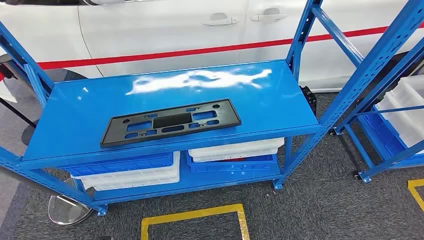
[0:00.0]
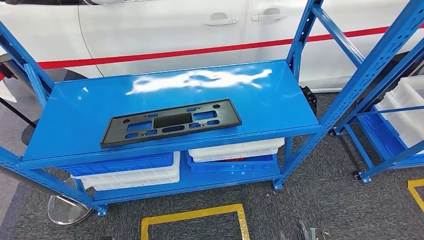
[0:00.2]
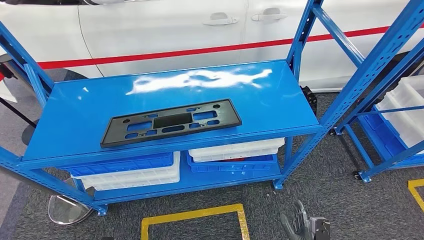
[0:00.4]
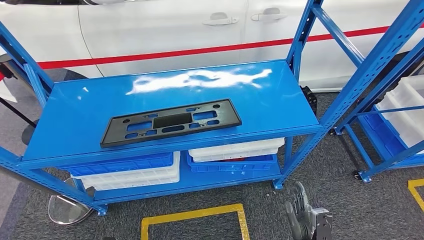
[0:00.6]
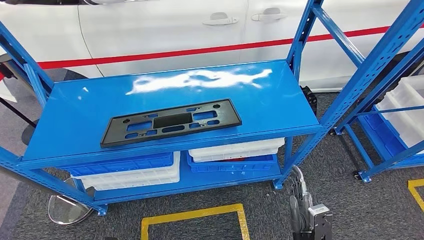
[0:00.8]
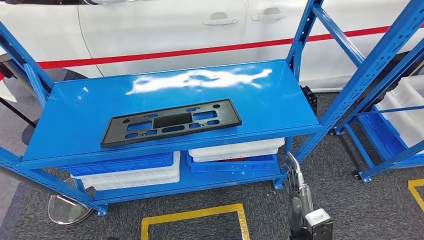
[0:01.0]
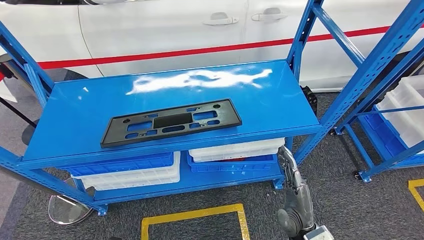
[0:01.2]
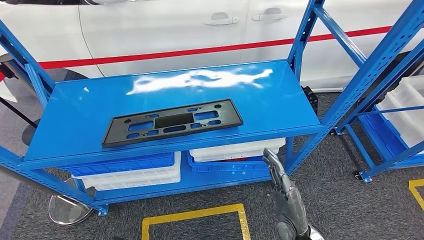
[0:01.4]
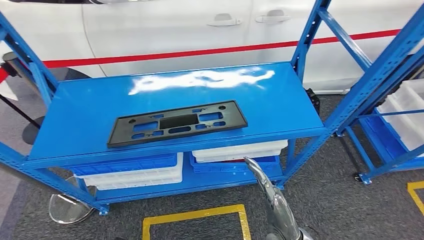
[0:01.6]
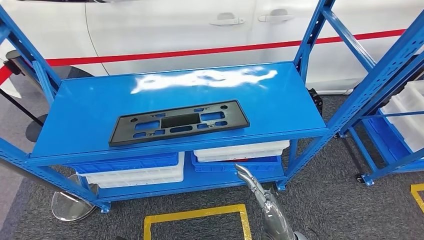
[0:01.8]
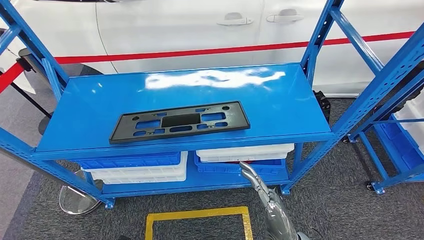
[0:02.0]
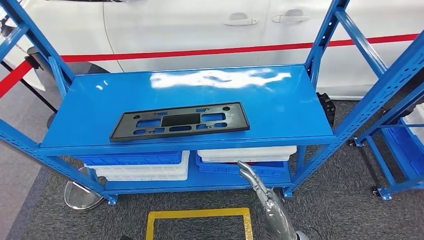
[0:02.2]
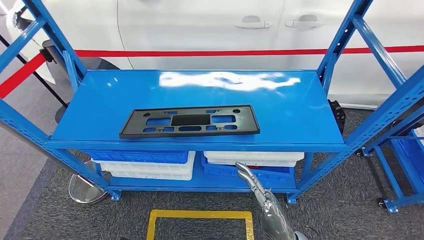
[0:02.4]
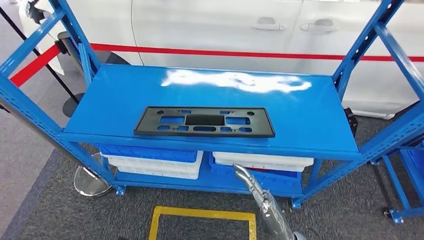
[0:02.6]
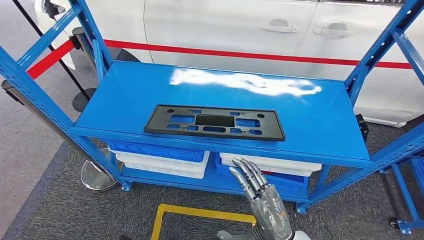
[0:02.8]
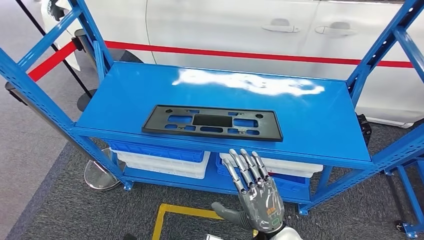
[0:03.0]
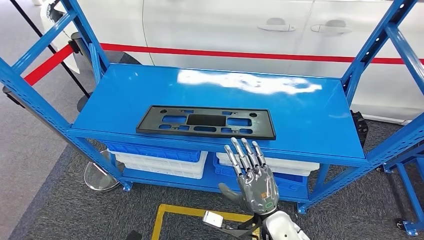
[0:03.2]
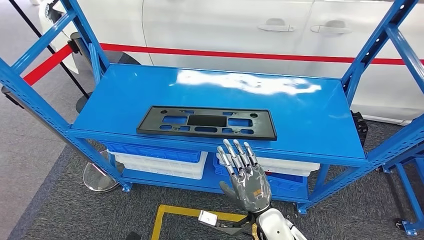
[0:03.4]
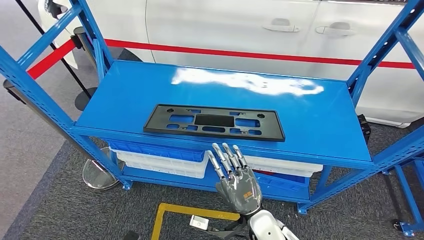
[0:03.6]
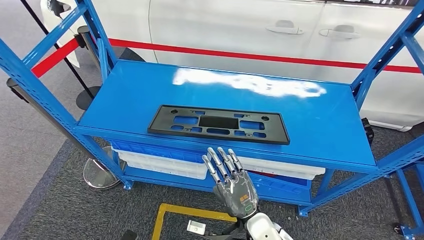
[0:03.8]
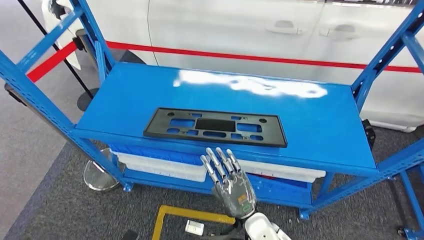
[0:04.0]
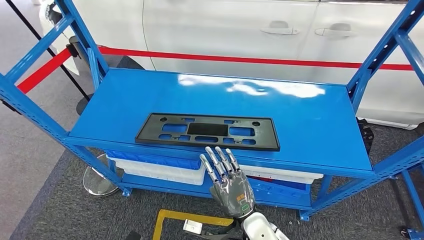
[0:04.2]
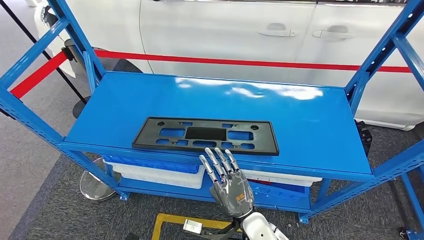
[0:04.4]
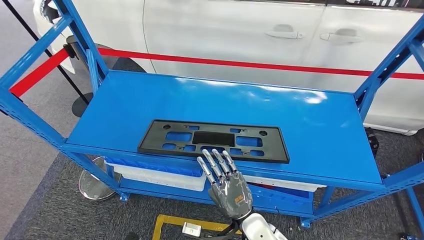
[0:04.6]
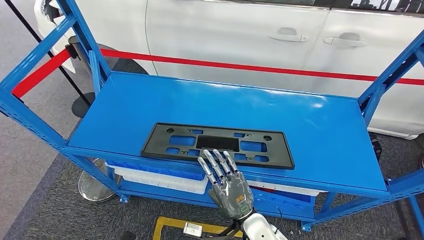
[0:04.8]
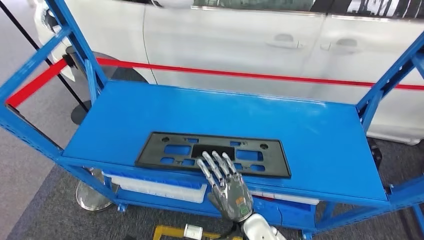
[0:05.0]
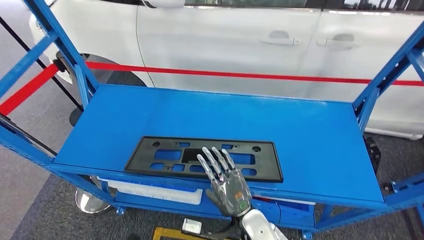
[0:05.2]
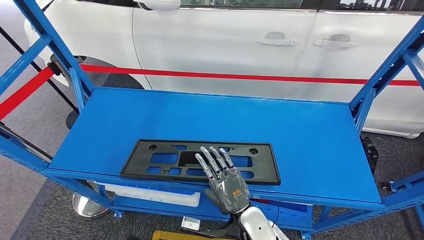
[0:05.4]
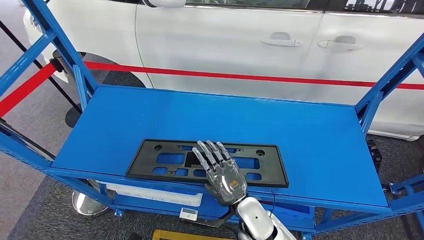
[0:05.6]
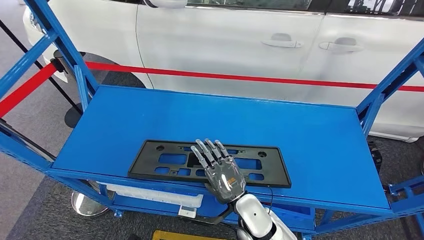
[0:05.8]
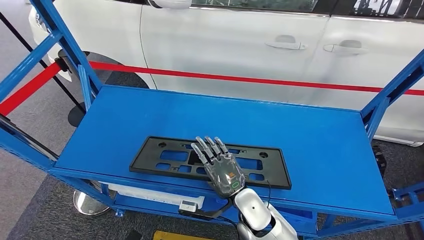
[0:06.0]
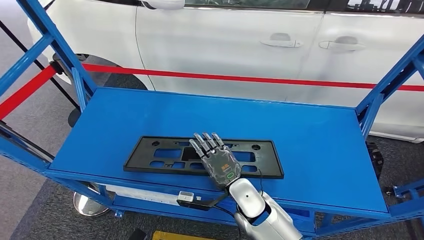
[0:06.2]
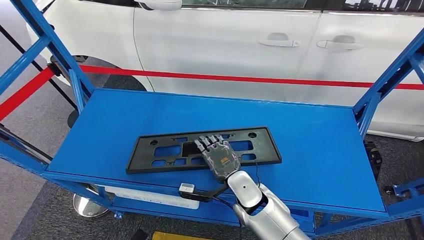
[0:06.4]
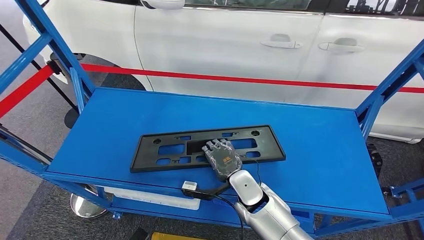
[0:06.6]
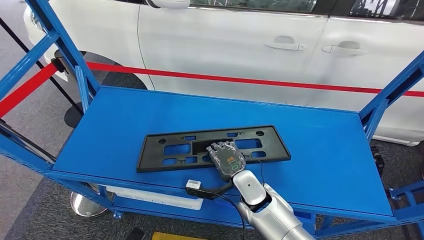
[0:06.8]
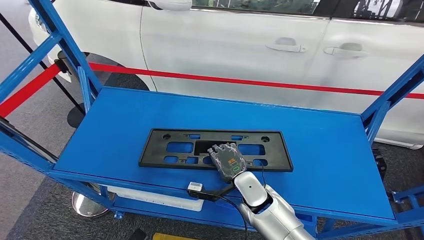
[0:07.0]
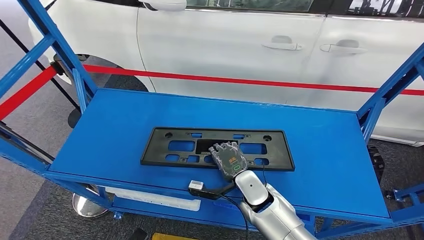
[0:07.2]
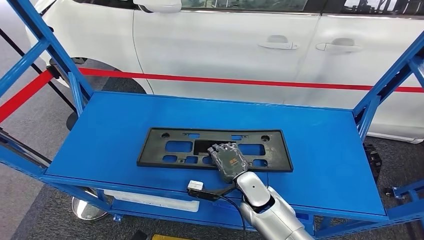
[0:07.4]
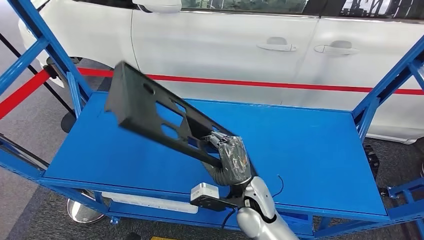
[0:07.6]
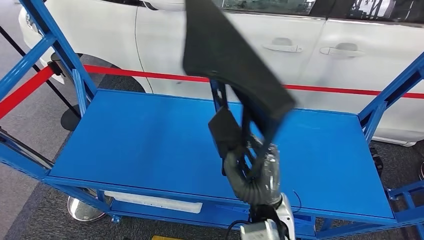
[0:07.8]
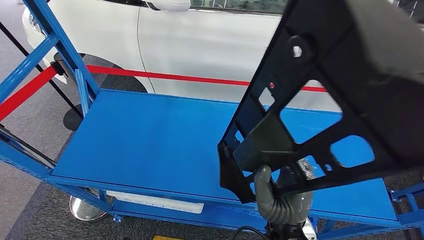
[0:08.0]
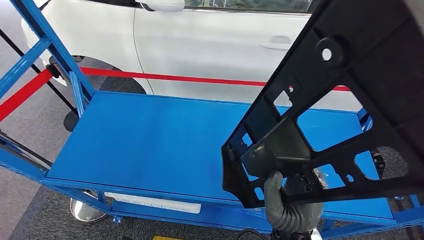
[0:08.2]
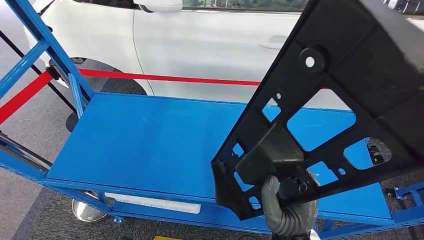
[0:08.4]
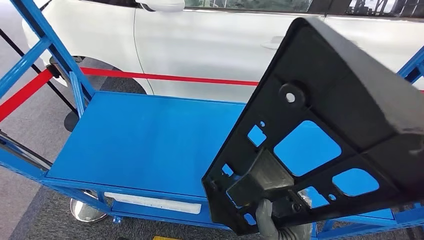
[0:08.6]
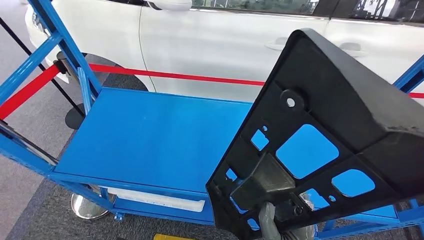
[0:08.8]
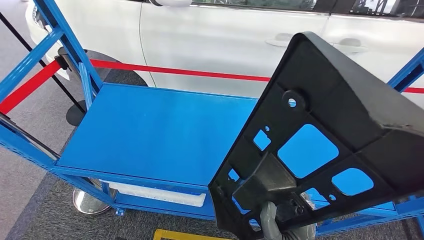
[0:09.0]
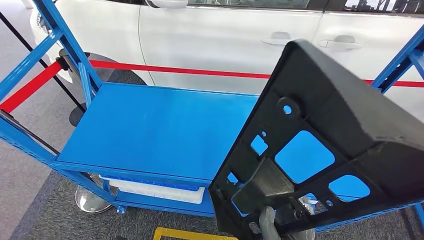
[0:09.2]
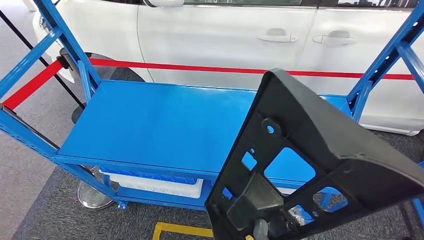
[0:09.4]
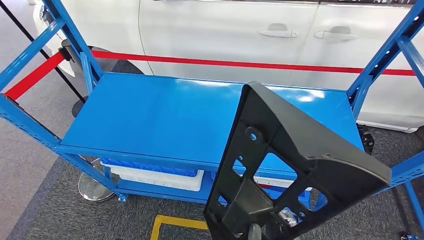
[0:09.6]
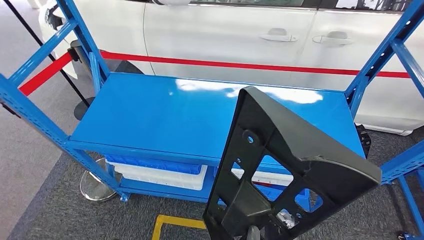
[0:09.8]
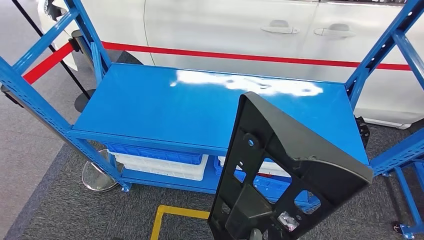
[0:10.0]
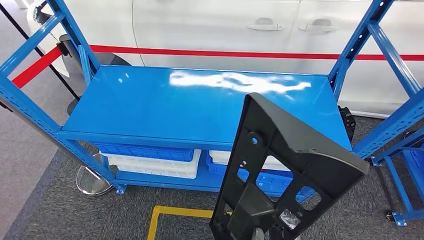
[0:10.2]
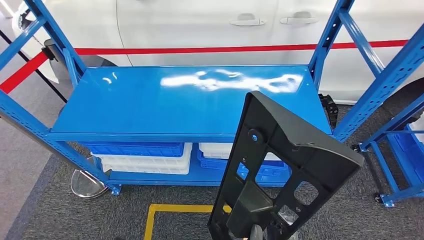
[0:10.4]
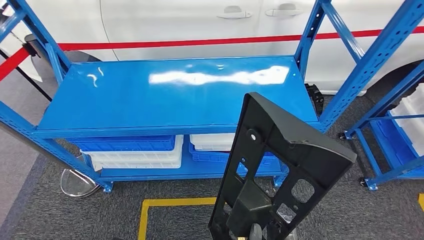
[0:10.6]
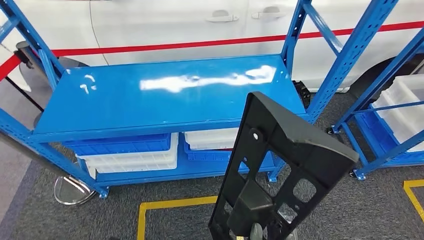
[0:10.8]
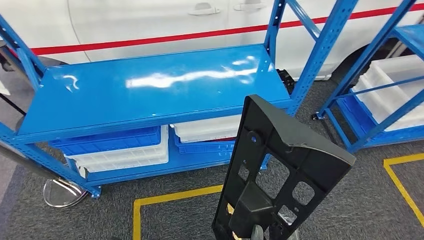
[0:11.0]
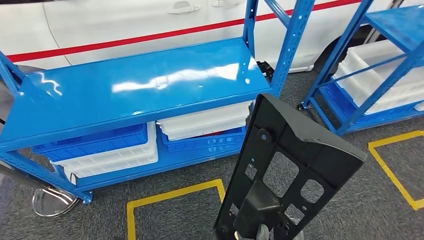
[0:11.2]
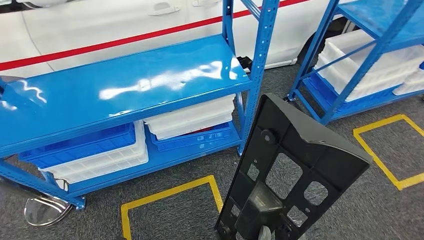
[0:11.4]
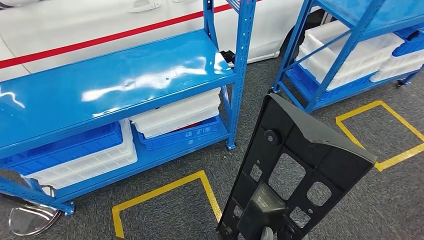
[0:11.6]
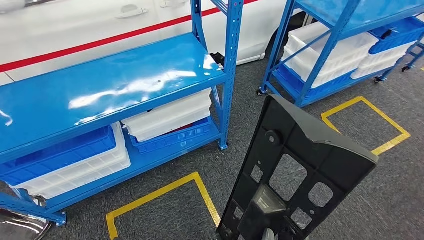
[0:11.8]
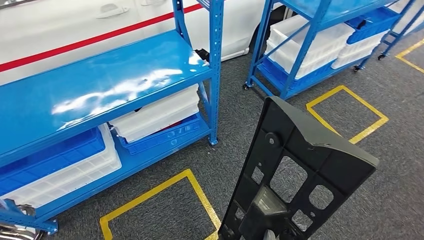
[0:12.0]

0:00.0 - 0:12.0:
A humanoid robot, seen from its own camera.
Step, 0:00.0 - 0:09.0: Pick up the large material from the shelf.

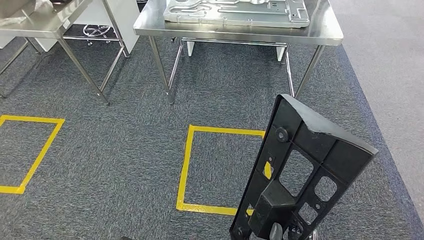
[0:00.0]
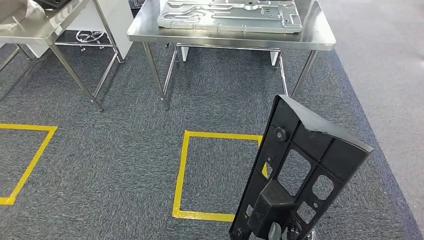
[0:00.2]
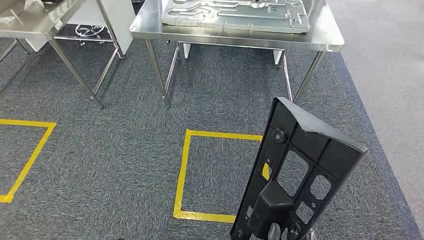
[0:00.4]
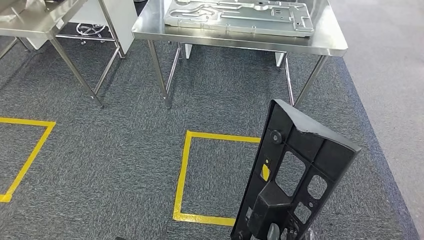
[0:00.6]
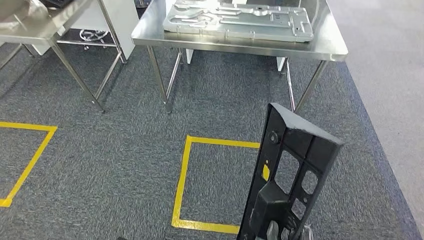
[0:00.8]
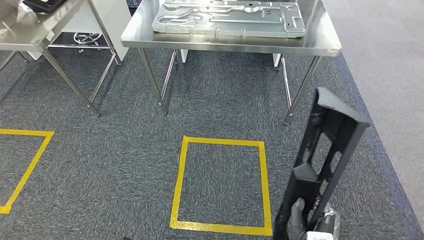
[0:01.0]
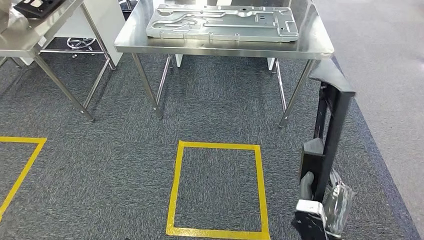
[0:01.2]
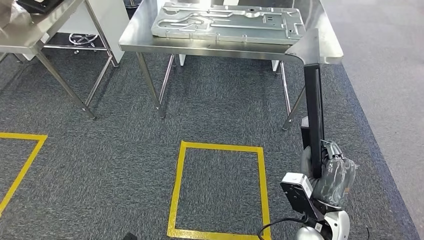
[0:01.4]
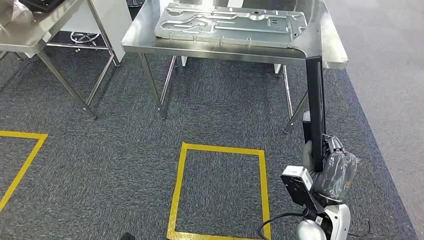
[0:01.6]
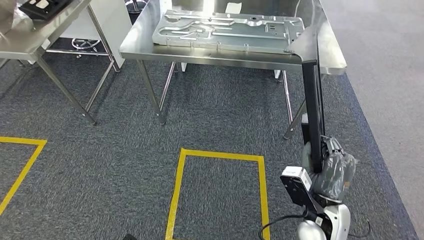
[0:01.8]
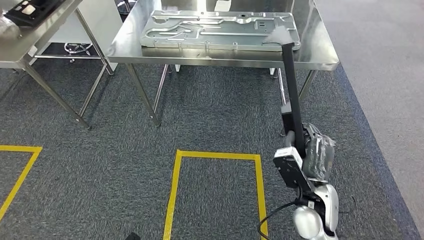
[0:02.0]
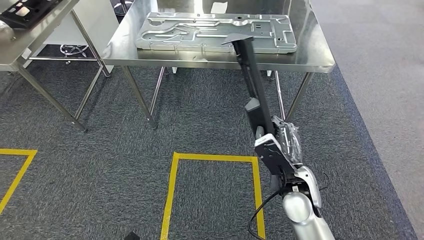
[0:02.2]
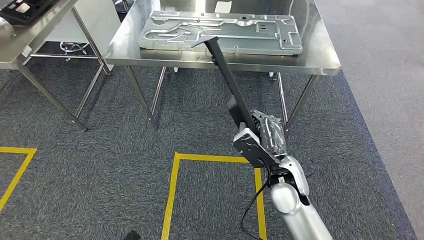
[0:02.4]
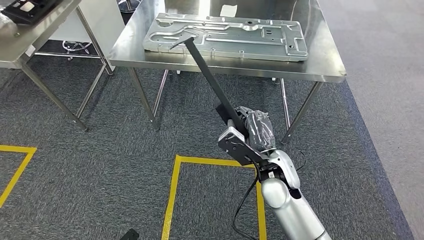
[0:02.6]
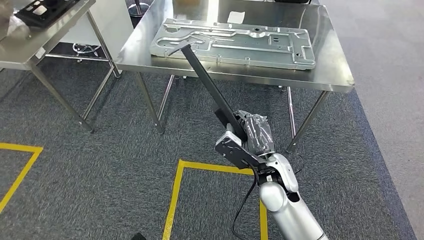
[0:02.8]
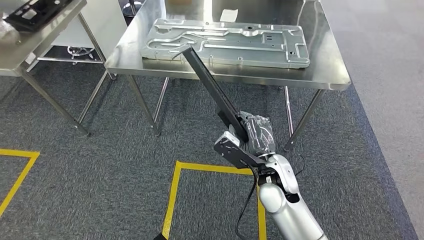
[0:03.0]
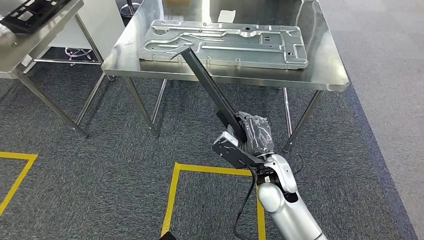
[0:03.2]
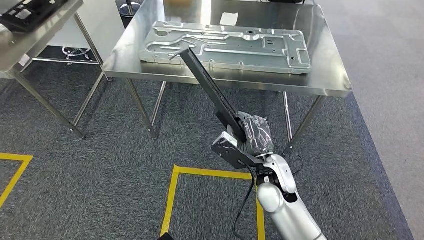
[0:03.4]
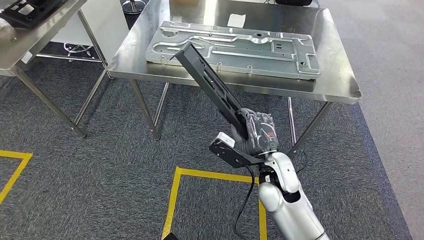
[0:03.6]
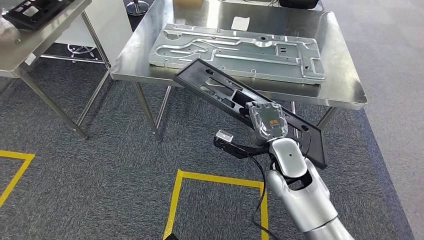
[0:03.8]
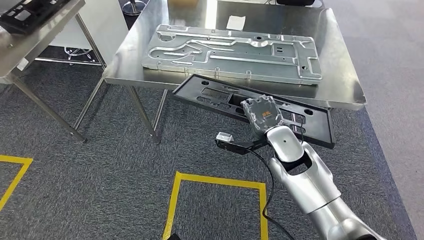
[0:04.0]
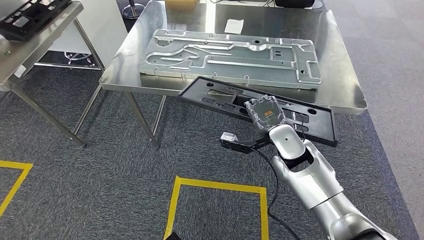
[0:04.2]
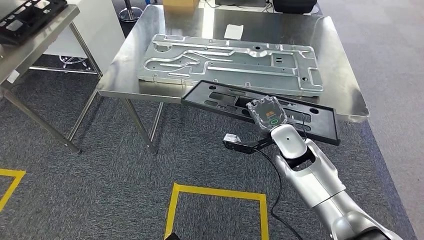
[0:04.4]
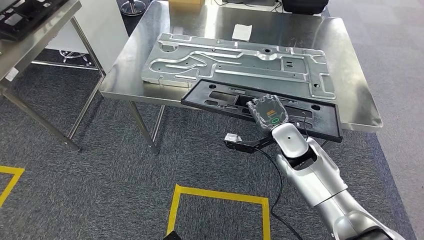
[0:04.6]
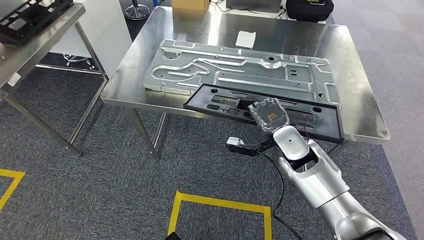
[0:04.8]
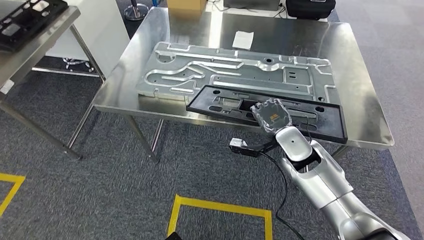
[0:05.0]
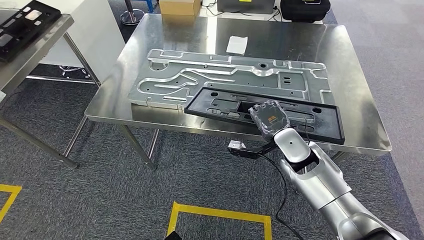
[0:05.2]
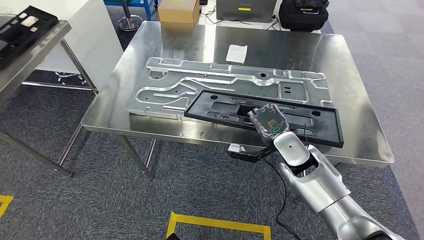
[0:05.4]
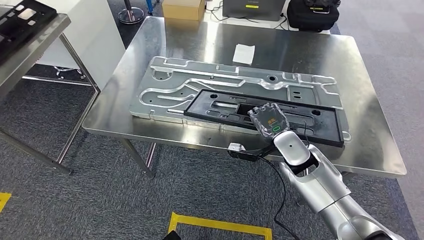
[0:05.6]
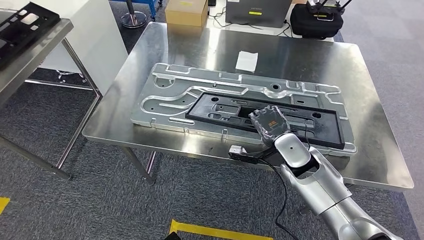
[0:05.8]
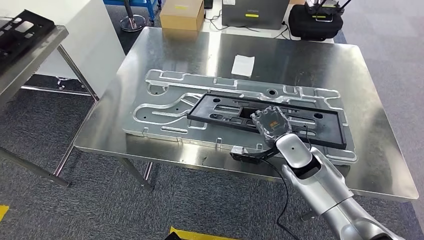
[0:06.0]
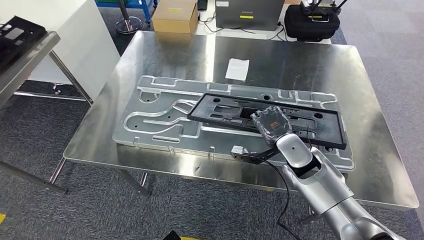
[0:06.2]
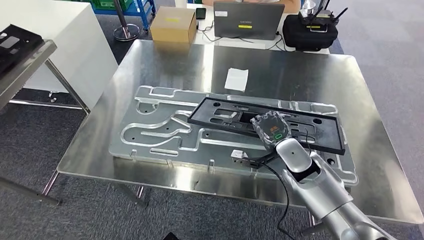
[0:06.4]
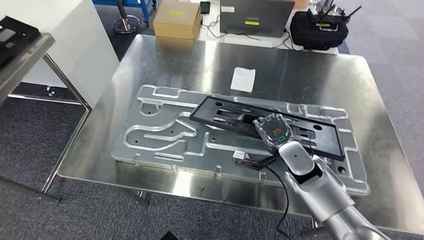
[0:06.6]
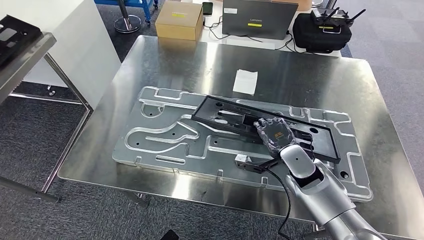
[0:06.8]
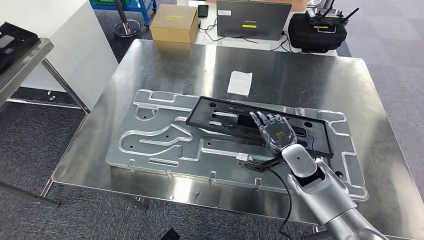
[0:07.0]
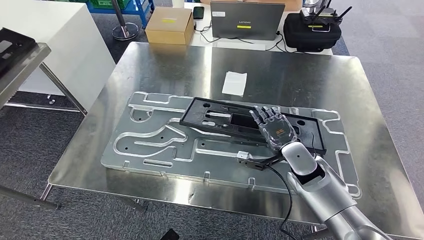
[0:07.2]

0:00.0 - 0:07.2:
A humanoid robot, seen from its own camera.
Step, 0:00.0 - 0:04.0: Move the large material to the front of the workbench.
